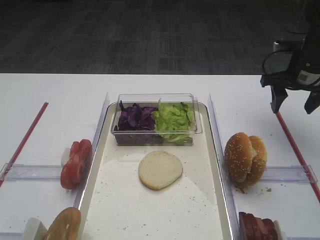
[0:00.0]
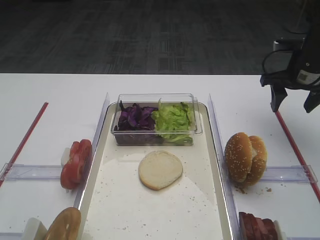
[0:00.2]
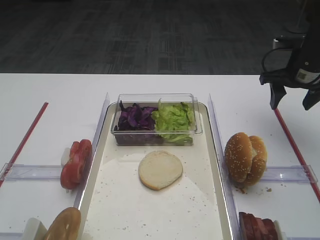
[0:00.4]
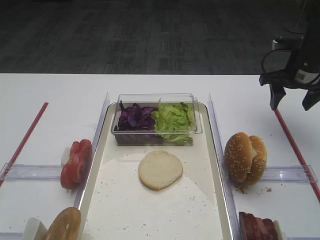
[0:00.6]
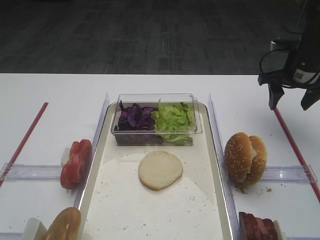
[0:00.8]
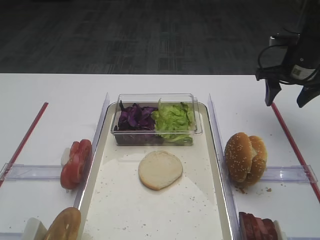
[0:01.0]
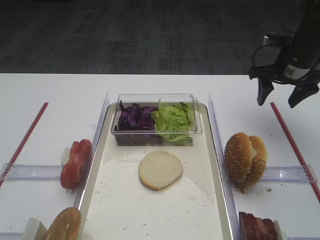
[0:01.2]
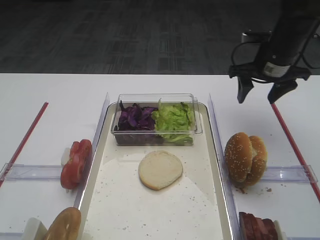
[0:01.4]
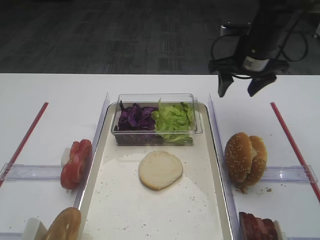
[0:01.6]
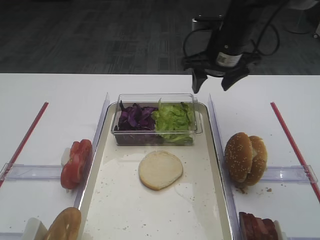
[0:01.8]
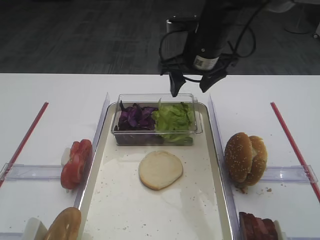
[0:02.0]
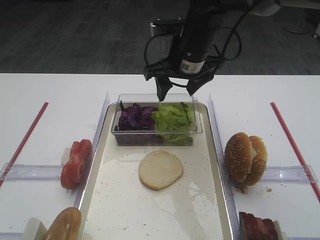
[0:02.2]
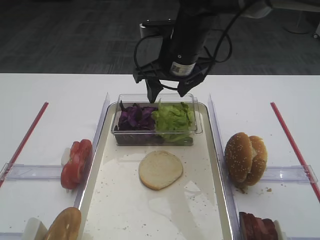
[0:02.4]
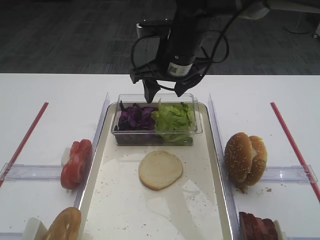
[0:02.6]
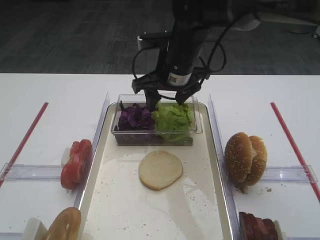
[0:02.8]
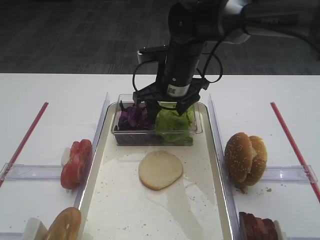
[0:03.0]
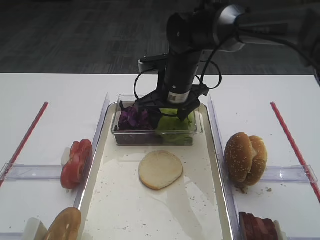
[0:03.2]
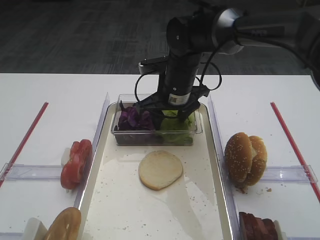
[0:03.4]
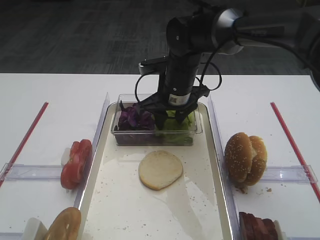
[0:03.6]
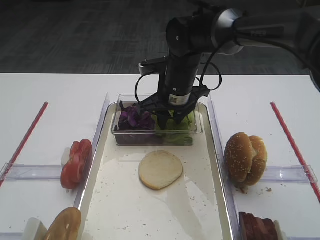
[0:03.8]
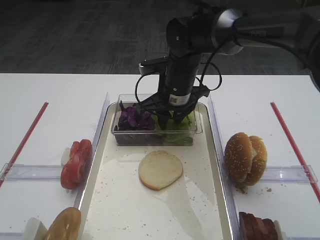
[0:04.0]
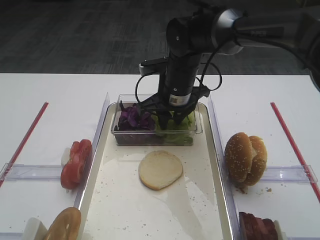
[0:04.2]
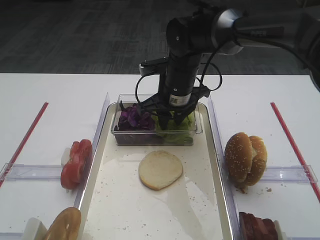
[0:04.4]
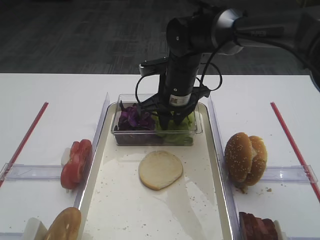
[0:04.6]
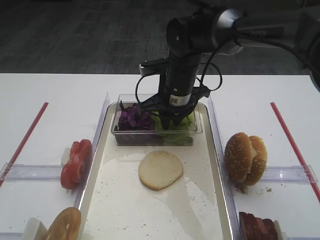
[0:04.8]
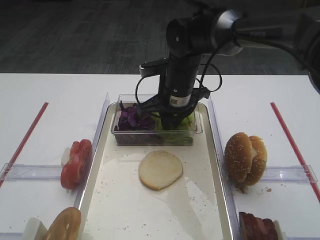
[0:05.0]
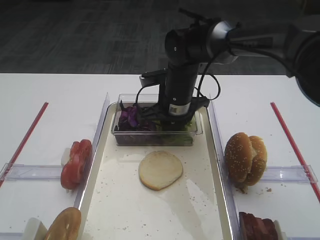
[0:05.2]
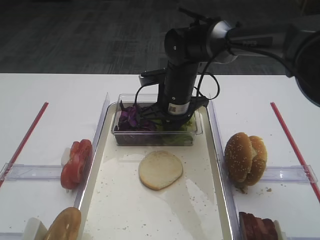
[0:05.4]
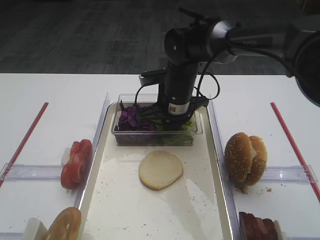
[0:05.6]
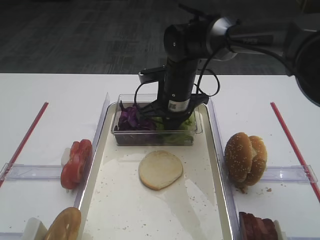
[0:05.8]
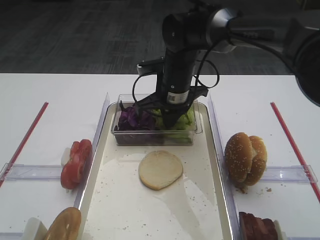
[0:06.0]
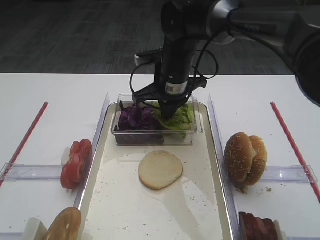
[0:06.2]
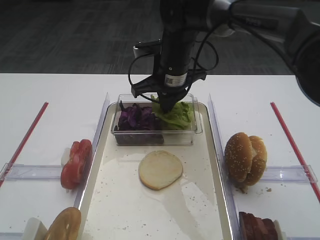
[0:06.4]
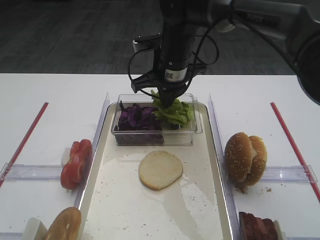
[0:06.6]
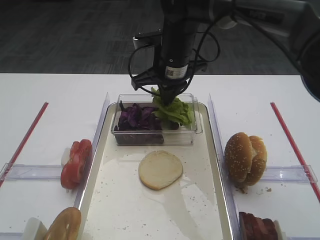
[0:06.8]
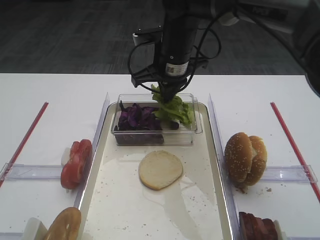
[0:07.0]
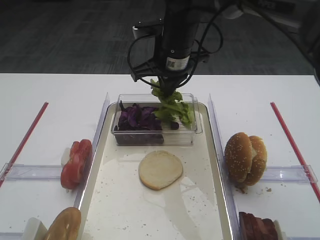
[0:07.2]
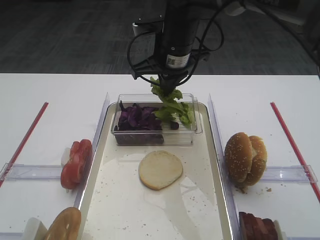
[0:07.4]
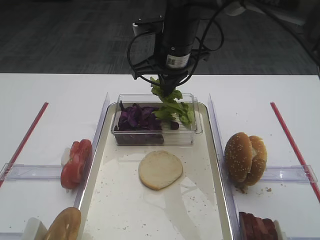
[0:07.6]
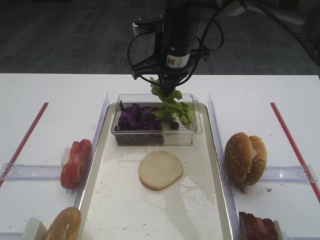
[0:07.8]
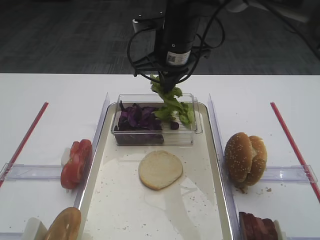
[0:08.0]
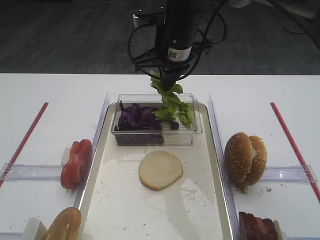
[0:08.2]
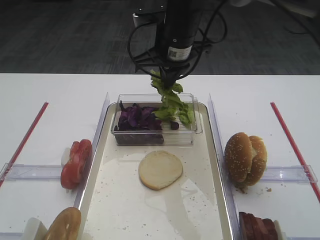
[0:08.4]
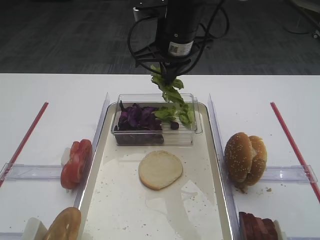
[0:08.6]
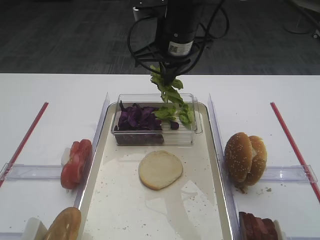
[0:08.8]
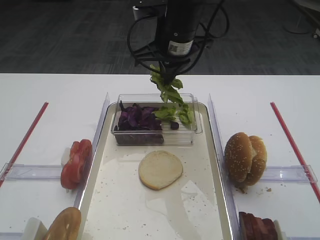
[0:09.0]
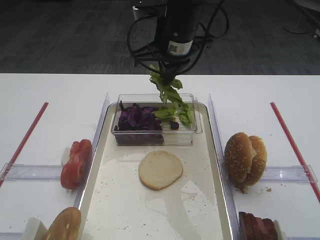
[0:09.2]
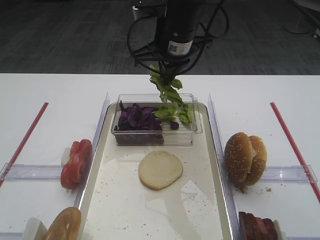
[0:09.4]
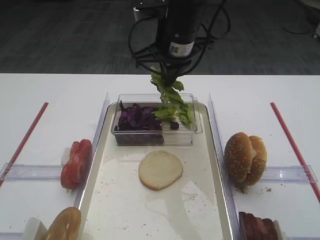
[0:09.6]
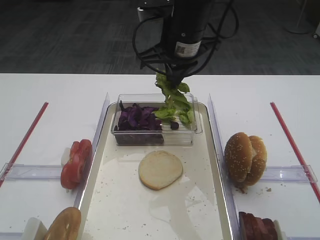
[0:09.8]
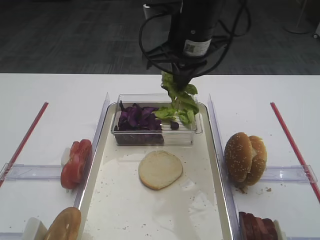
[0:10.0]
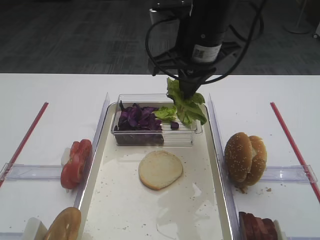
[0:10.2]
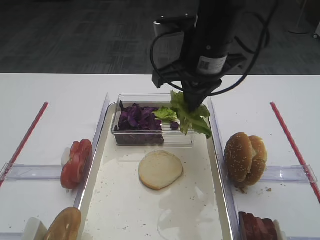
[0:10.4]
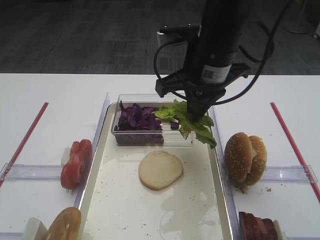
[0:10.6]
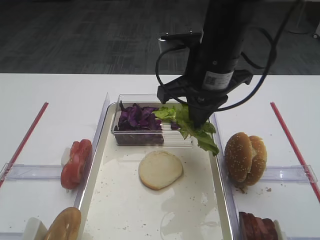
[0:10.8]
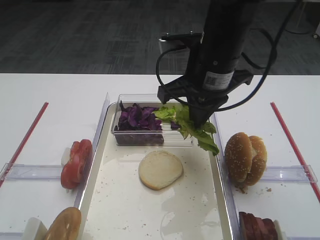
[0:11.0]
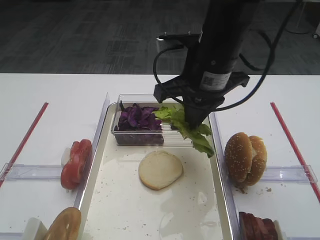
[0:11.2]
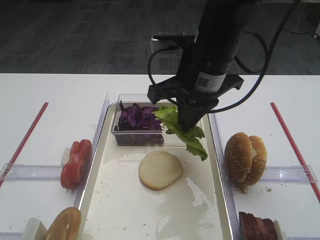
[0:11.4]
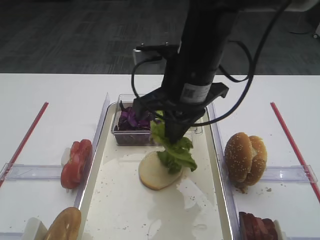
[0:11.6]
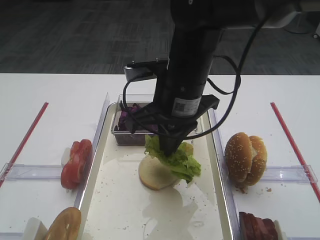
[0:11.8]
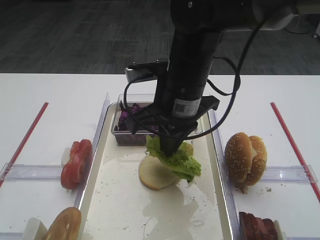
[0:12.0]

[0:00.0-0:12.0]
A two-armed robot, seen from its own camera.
Step, 0:00.0 to 0:07.2: Pick up the lettuce leaf with the right gripper.
0:00.0 to 0:01.6: The right gripper goes roughly 10 cm to the left.
0:01.6 to 0:03.0: The right gripper shifts about 15 cm to the left.
0:03.0 to 0:04.4: The right gripper closes its fingers.
0:04.4 to 0:06.0: The right gripper closes its fingers.
0:06.0 to 0:07.6: The right gripper is displaced upward by about 10 cm.
0:07.6 to 0:09.0: The grippers stay close to where they were, moving slightly.
0:09.0 to 0:10.4: The right gripper shifts about 5 cm backward.
0:10.4 to 0:12.0: The right gripper moves about 5 cm.

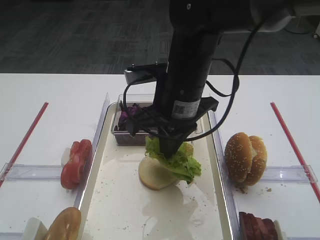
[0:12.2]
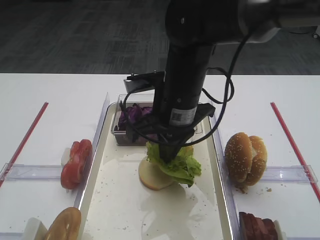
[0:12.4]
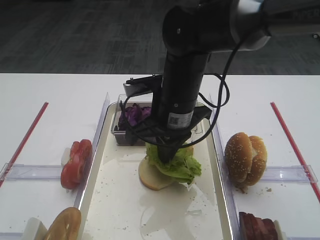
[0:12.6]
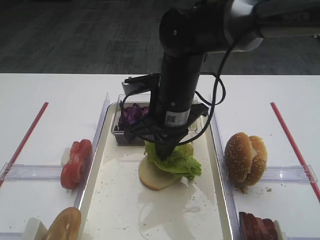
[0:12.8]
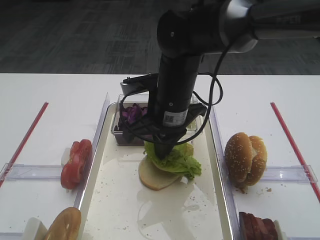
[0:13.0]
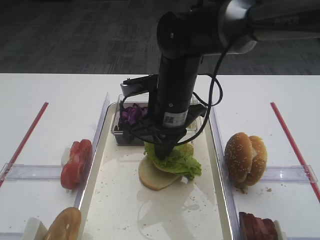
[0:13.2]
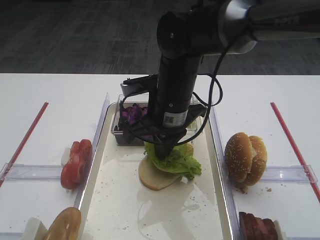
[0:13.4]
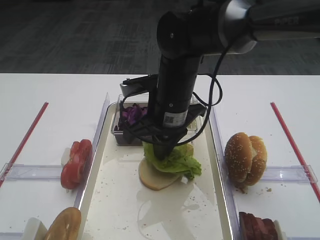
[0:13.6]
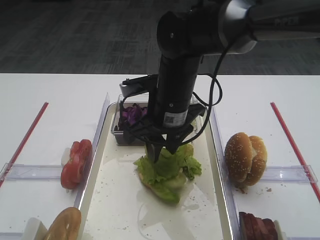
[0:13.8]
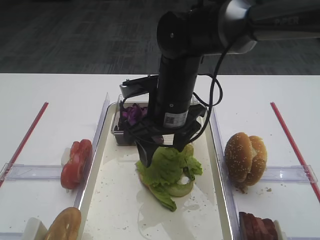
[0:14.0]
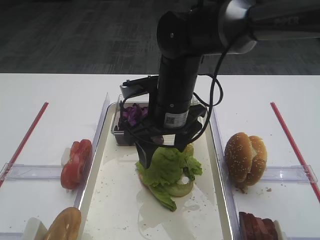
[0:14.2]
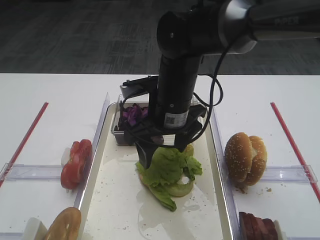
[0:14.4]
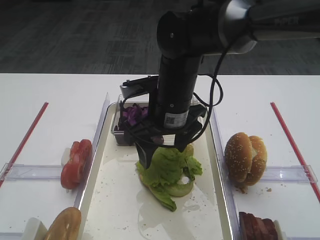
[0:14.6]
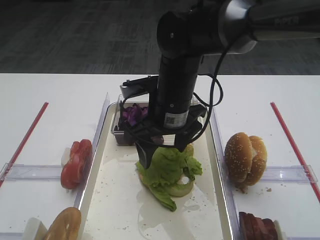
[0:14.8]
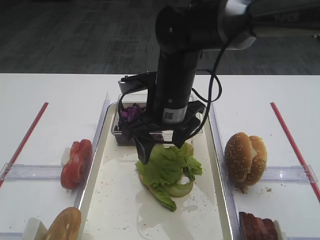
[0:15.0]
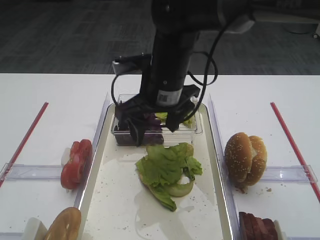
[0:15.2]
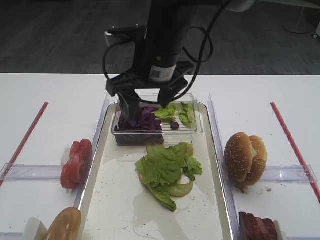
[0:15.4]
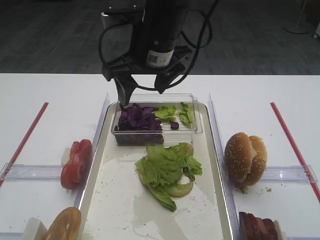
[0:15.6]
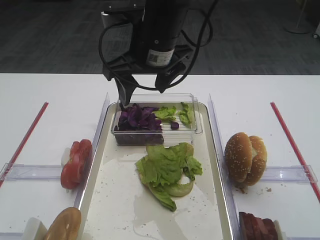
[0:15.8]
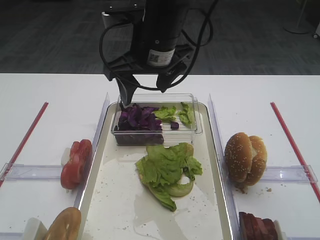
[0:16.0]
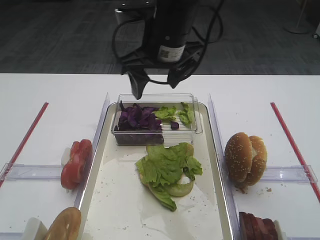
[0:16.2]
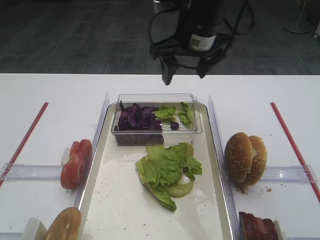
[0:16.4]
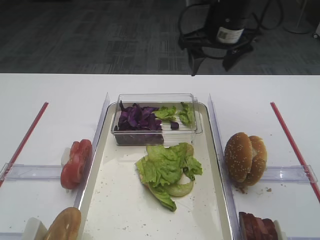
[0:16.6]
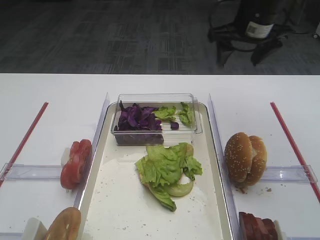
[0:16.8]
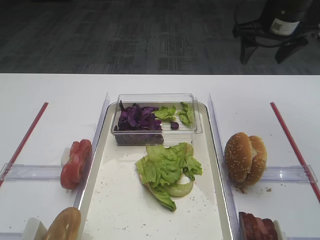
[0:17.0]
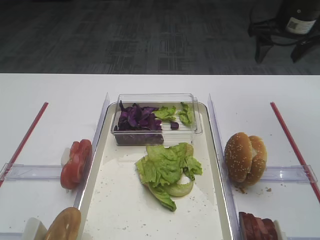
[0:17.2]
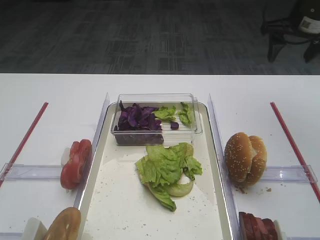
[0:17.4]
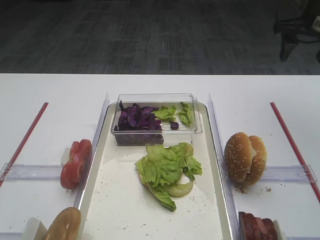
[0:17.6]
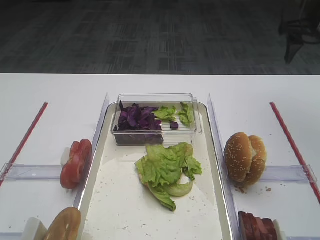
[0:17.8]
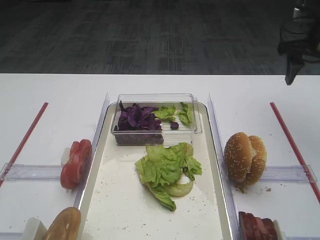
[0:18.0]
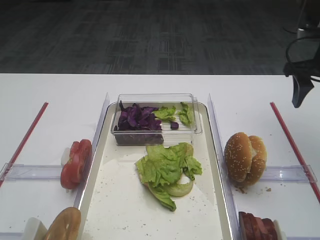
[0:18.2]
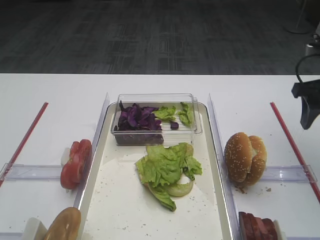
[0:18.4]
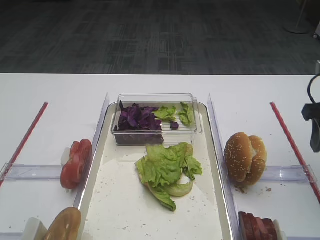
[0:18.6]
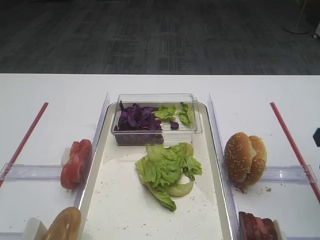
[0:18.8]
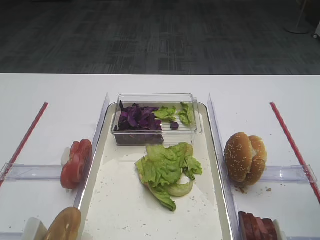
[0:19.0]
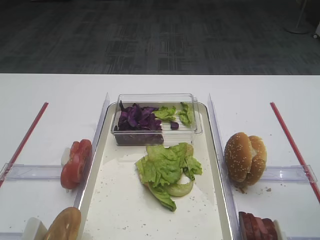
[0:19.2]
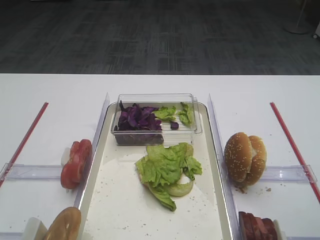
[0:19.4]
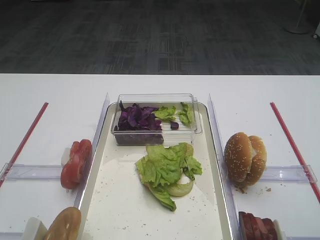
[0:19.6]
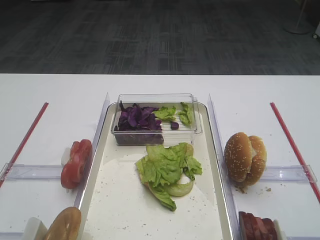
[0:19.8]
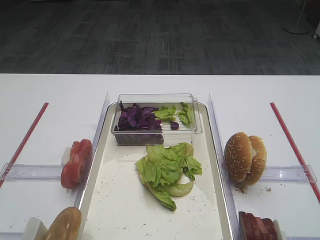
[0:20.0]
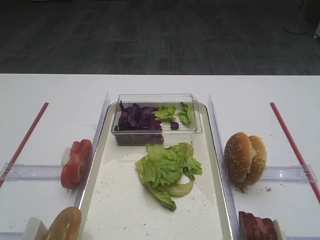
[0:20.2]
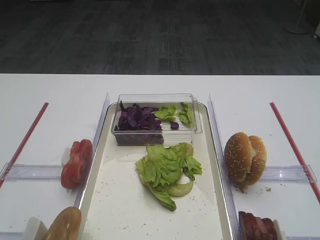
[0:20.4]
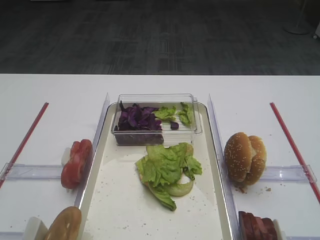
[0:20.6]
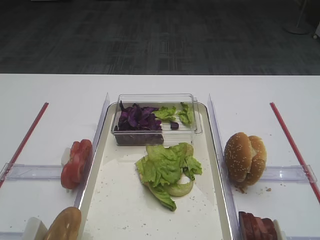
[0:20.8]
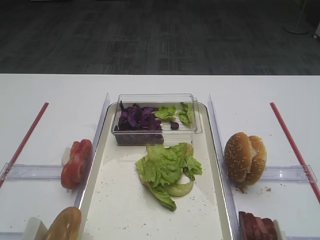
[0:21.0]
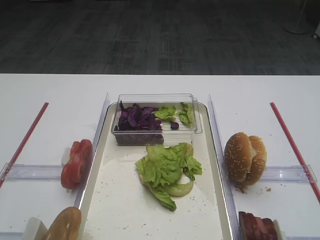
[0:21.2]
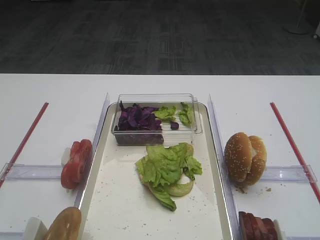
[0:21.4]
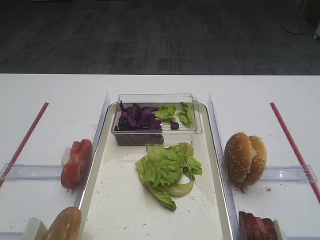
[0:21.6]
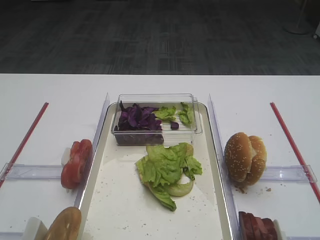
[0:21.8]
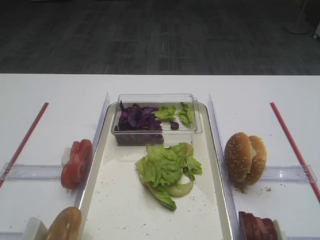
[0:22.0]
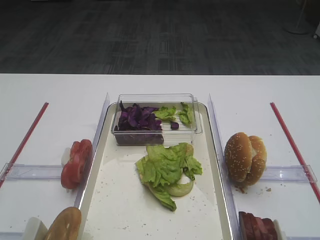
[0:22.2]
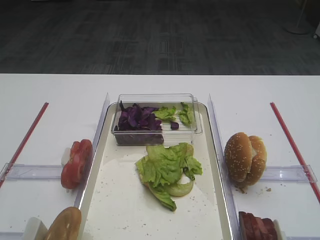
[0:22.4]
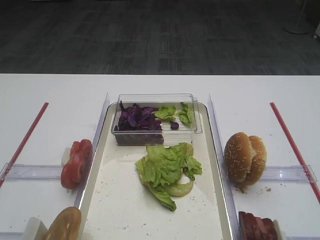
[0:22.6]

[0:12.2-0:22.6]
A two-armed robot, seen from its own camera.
Step, 0:12.2 to 0:15.0: Place the lettuce leaf on the bread slice with the right gripper.
0:12.2 to 0:13.6: There are only small adjustments of the grippers.
0:13.6 to 0:15.2: The right gripper opens its fingers.
0:15.2 to 0:16.6: The right gripper moves to the right, forward and upward, about 15 cm.
0:16.6 to 0:18.2: The right gripper travels to the right by about 20 cm.
0:18.2 to 0:19.6: The right gripper is displaced backward by about 30 cm.
0:21.2 to 0:22.6: Both grippers stay put.
